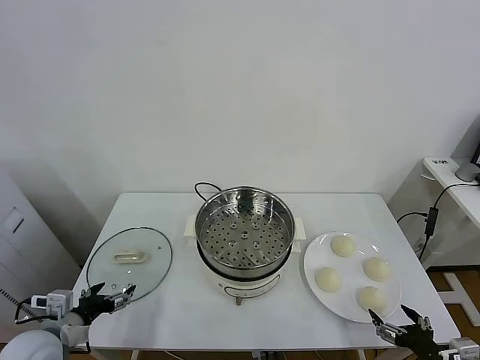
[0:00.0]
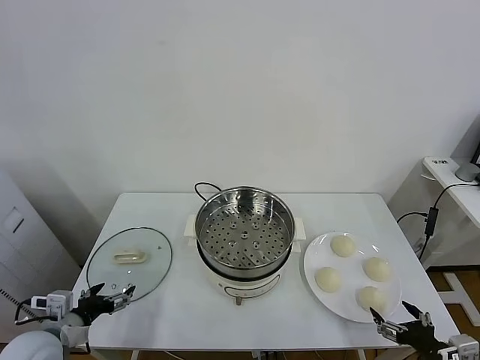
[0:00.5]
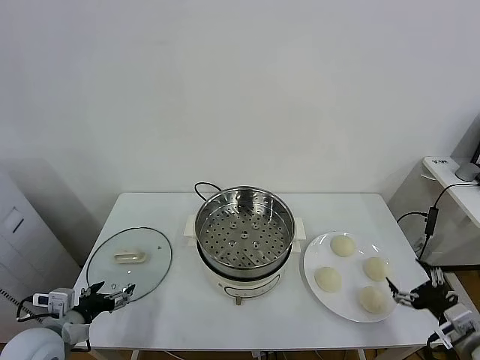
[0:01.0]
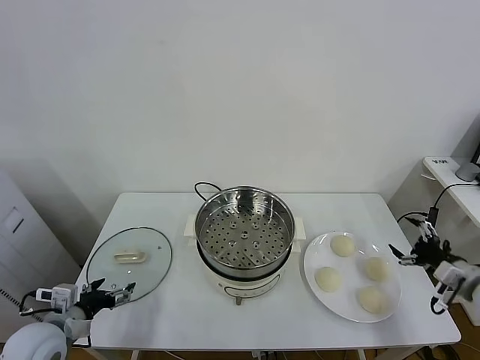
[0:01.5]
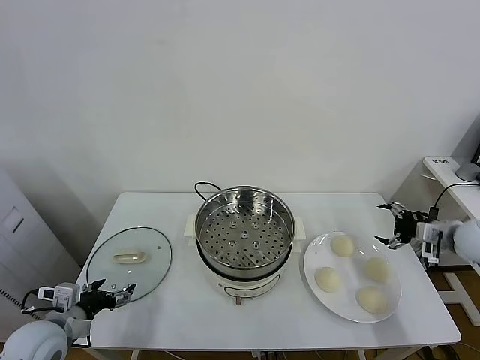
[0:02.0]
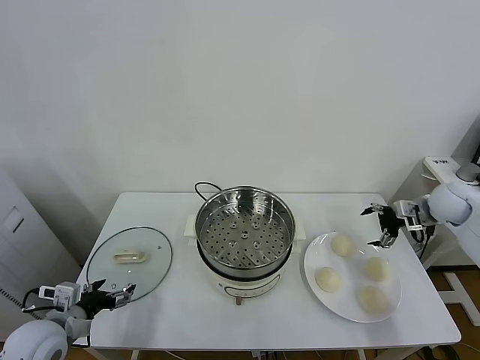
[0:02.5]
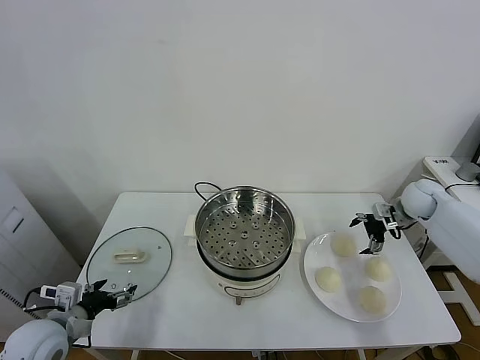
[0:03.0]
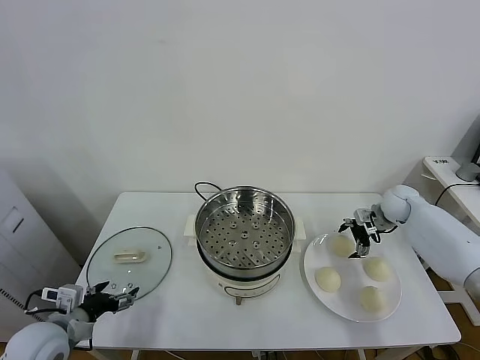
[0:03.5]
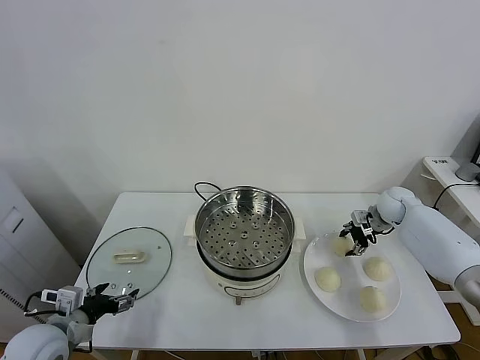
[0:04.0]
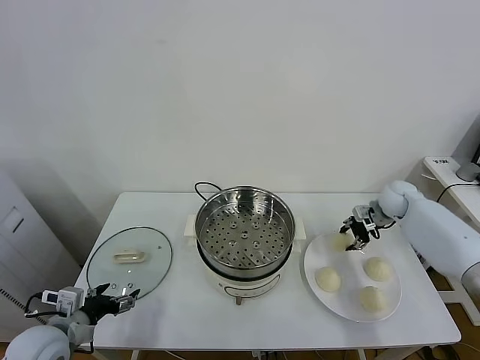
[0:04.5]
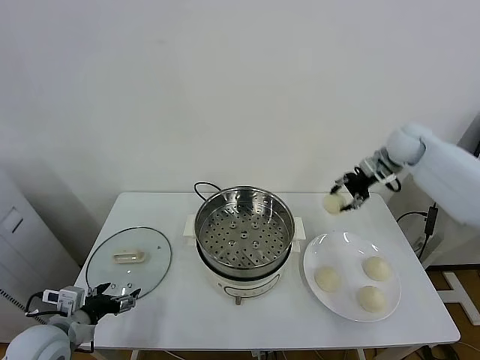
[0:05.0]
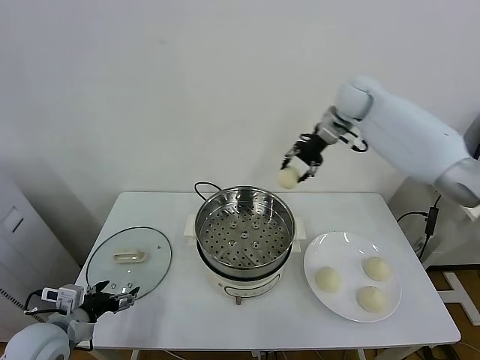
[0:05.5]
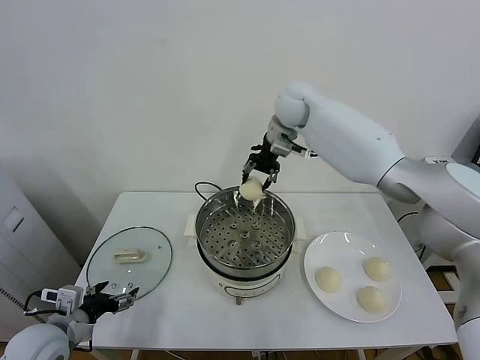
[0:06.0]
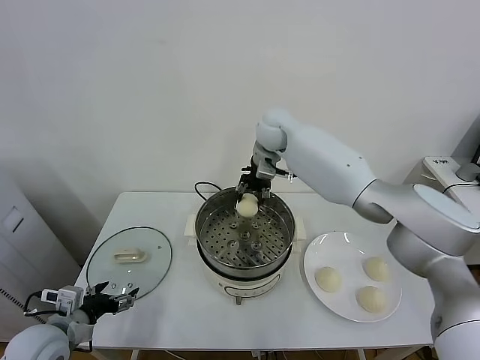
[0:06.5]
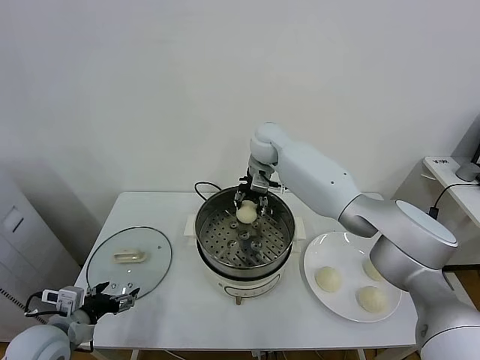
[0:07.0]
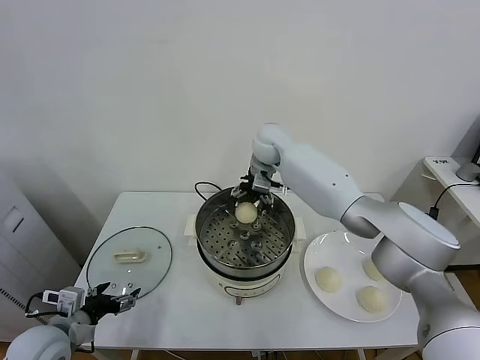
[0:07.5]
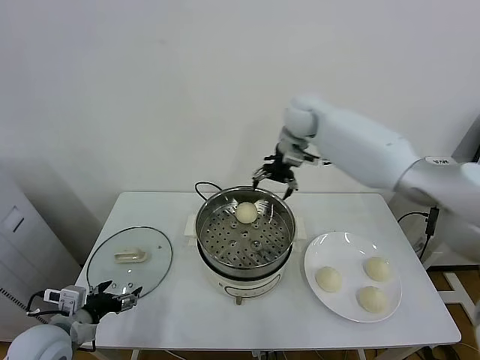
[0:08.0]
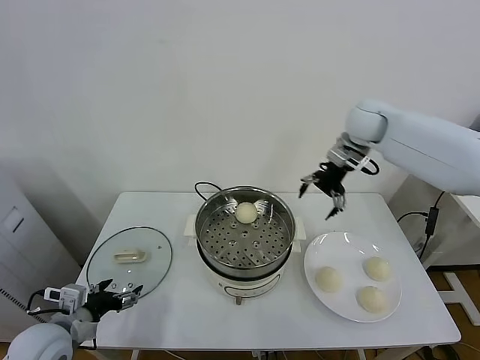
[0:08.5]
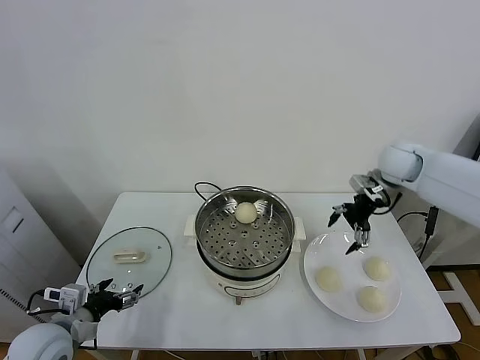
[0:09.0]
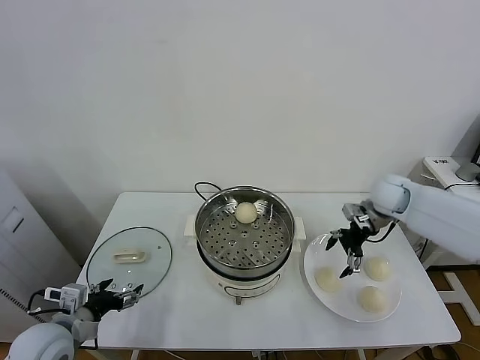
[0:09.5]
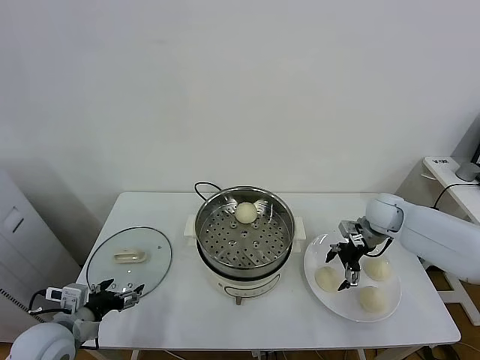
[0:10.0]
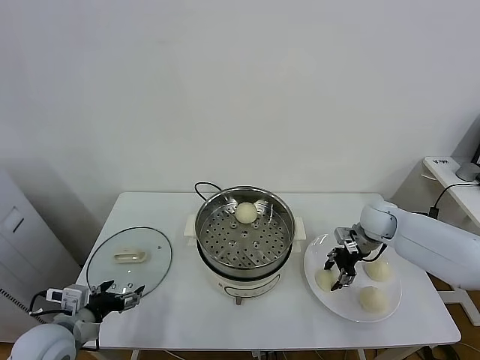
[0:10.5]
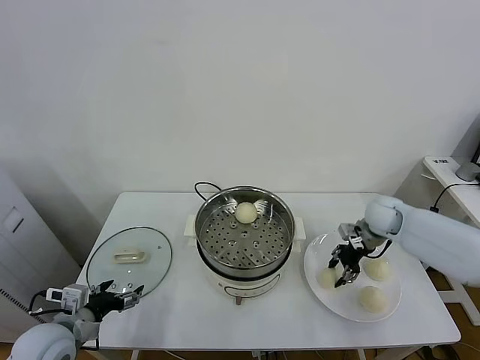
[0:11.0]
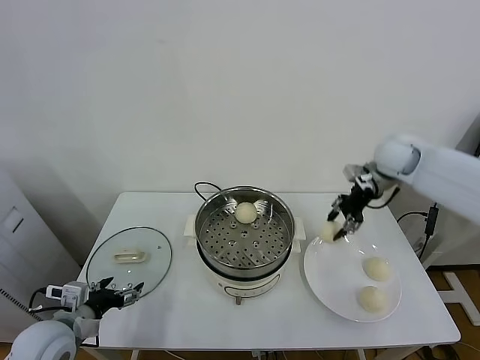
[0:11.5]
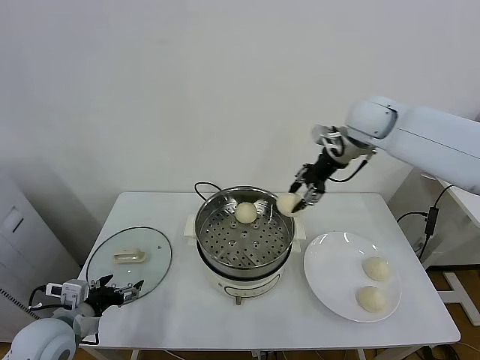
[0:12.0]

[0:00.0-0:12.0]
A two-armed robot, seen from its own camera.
Task of the whole recording: take steamed baozi put them in steamer.
Step, 0:00.0 to 0:04.0: Grasp the baozi in the plate with right gripper.
Step, 0:04.5 to 0:07.5: Place the baozi on the steamer with right gripper.
Step, 0:08.0 to 0:10.5: Grasp the baozi in the plate with right gripper.
0:02.0 to 0:04.0: The right gripper heads forward, to the left and downward, covering roughly 15 cm, and closes up.
0:04.0 to 0:06.0: The right gripper shifts roughly 40 cm to the left and upward.
0:06.0 to 0:08.0: The right gripper goes some 5 cm to the right, and opens its fingers.
0:08.0 to 0:10.0: The right gripper moves downward, to the right and backward, about 30 cm.
0:10.0 to 0:12.0: The right gripper moves upward and to the left, approximately 25 cm, and closes up.

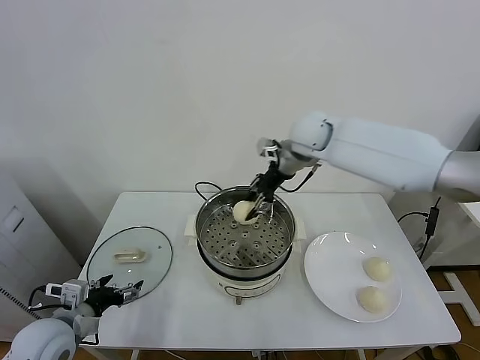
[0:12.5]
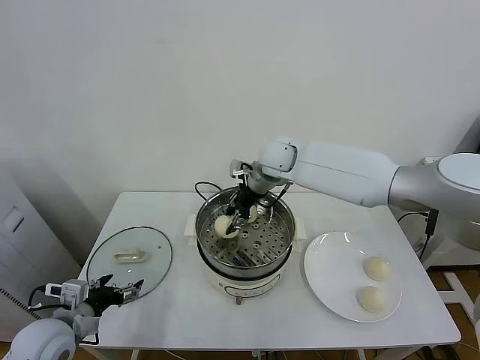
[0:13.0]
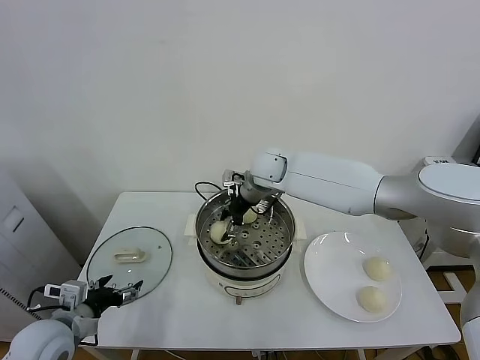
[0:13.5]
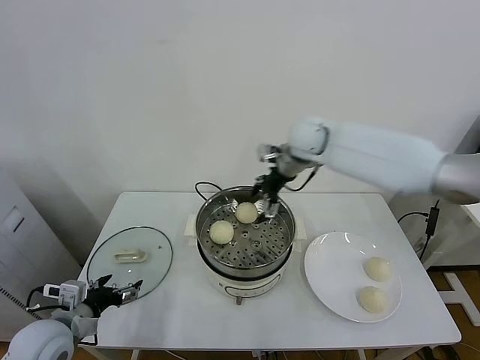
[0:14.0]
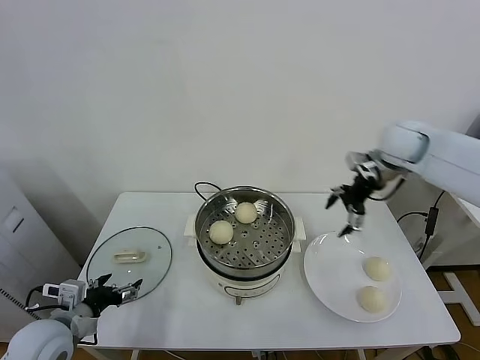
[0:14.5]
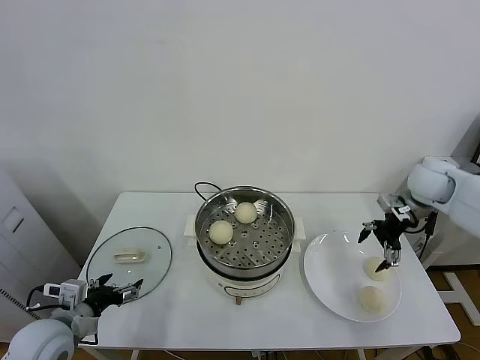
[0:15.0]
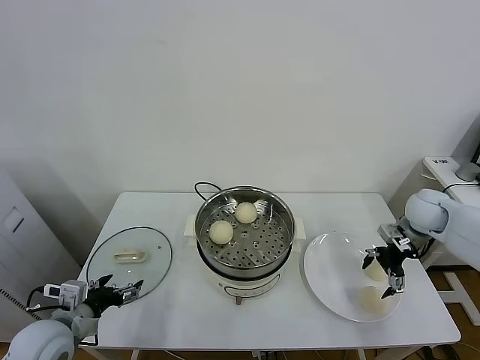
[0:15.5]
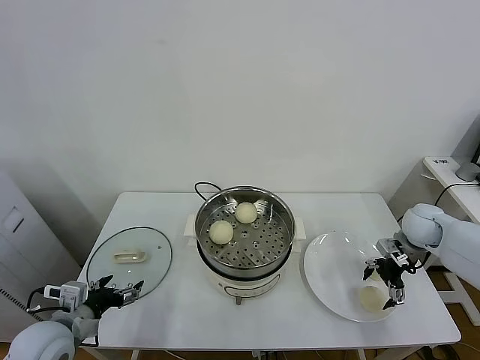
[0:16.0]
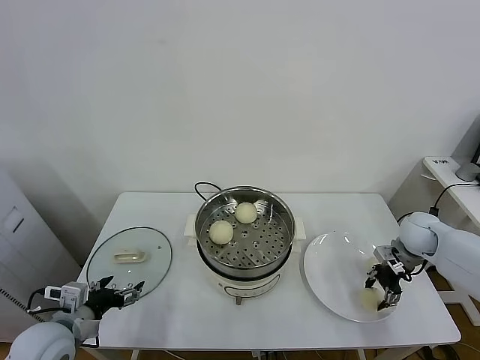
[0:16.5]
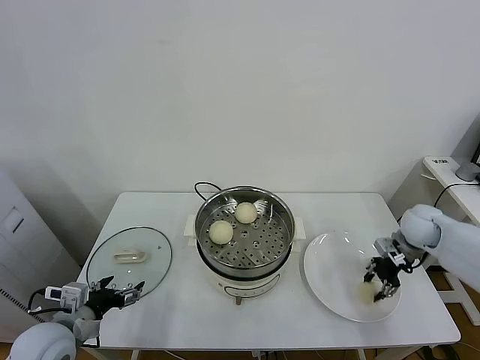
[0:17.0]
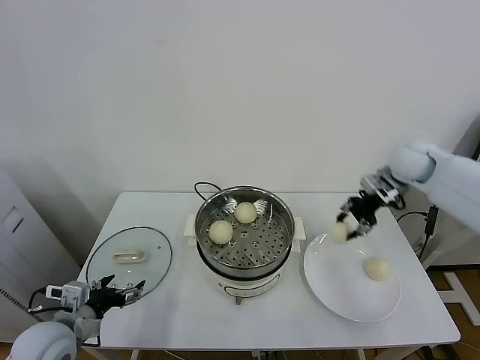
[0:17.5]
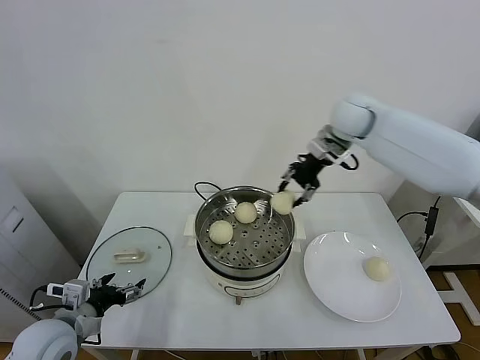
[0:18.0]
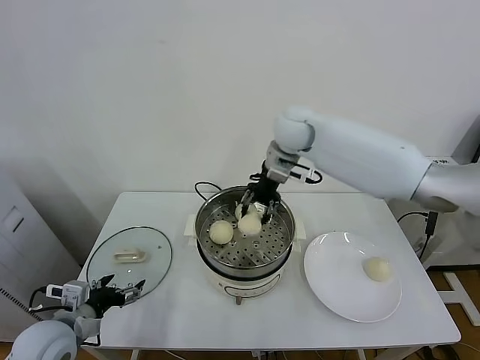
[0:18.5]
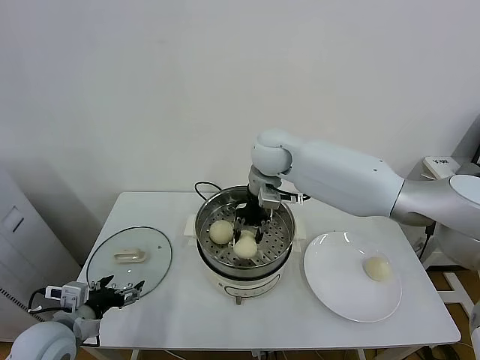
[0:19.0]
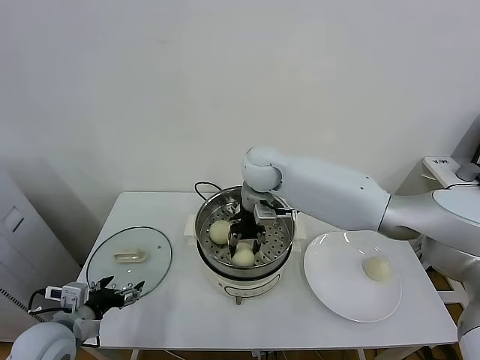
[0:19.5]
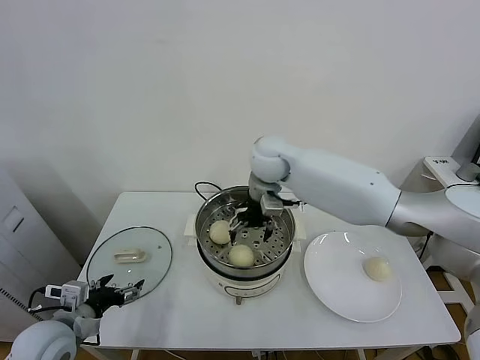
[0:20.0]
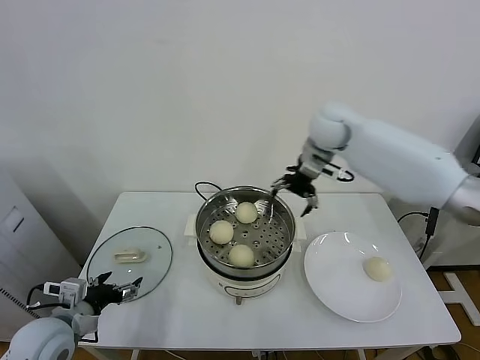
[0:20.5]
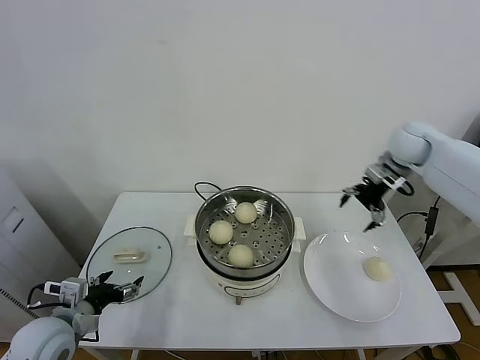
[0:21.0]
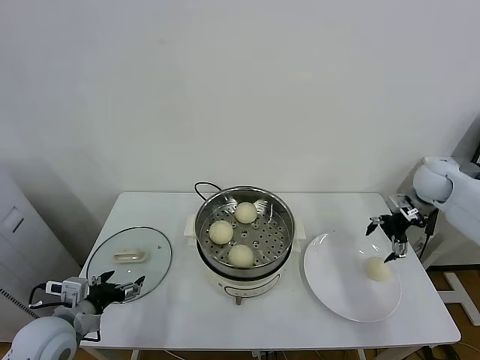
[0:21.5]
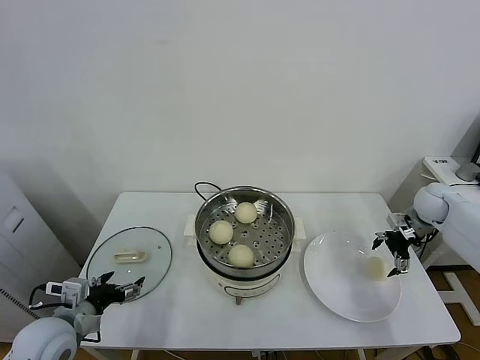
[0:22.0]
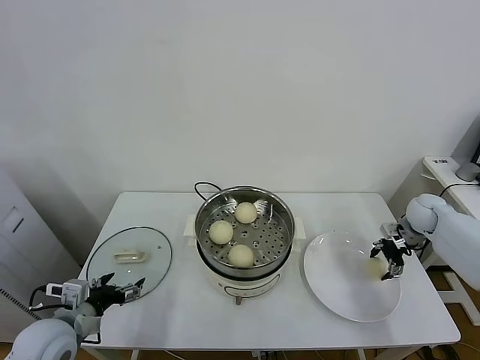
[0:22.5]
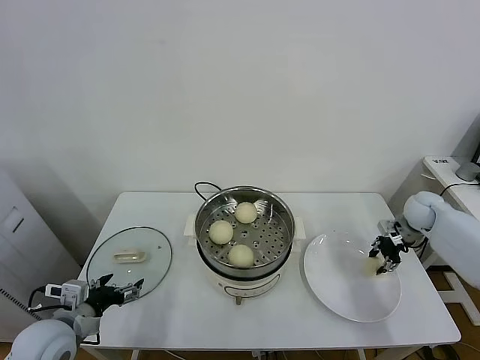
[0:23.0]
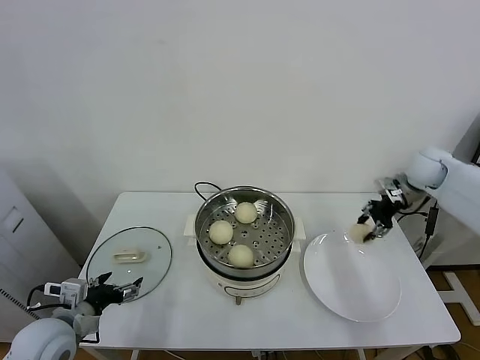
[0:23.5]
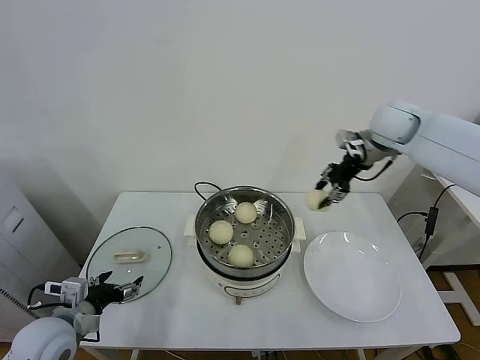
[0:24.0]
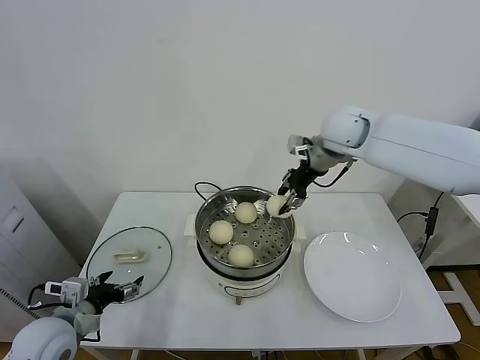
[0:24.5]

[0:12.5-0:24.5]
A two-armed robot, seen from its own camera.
Task of the whole recording: take steamed baozi put them in steamer.
Step, 0:14.0 to 0:16.5: Grasp the baozi in the plate with right gripper.
Step, 0:17.0 to 0:20.0: Place the baozi on the steamer with right gripper.
Step, 0:20.5 to 0:22.5: Grasp the baozi in the plate with right gripper.
0:12.5 to 0:14.5: The right gripper travels to the right by roughly 25 cm, and opens its fingers.
0:14.5 to 0:16.5: The right gripper heads downward, covering roughly 20 cm, and closes its fingers.
0:16.5 to 0:18.5: The right gripper shifts about 40 cm to the left and upward.
0:18.5 to 0:20.5: The right gripper travels to the right by about 10 cm, and opens.
0:20.5 to 0:22.5: The right gripper is displaced to the right and downward by approximately 35 cm, and closes its fingers.
0:22.5 to 0:24.5: The right gripper shifts approximately 35 cm to the left and upward, and closes its fingers.

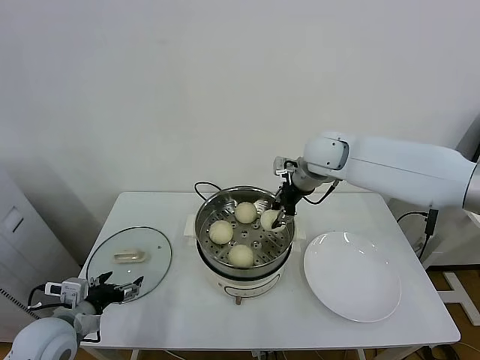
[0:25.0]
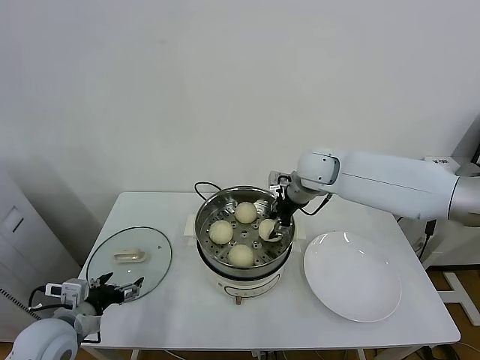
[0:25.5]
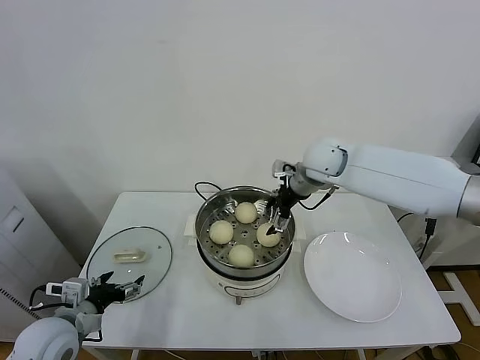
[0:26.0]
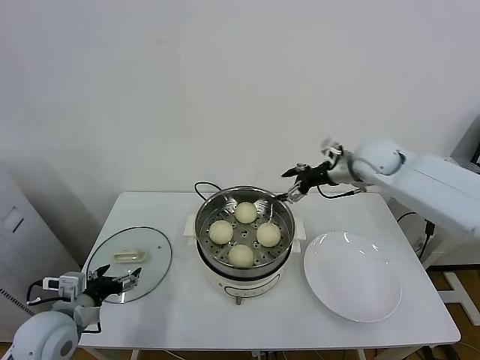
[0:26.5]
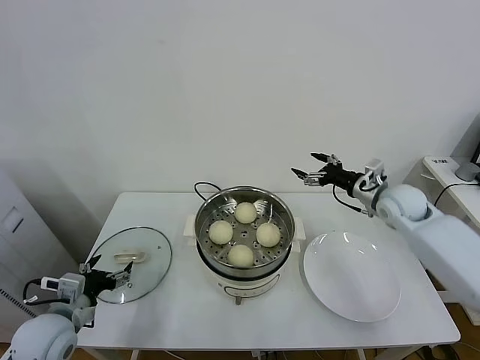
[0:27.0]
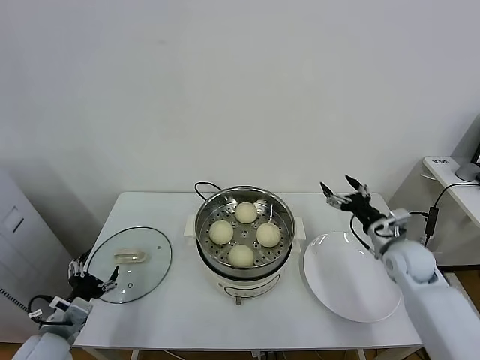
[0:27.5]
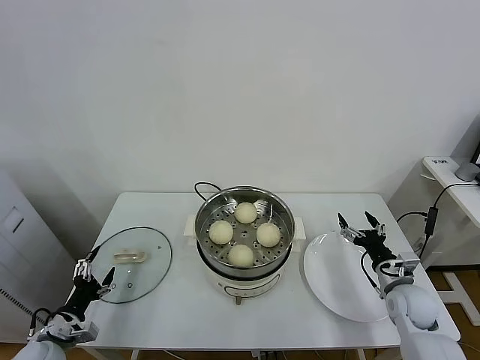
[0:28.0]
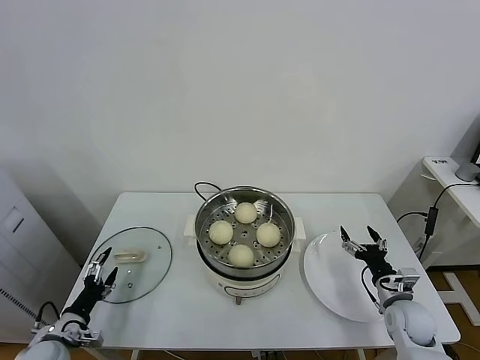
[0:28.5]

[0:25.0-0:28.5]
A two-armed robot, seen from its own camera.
Task of the whole recording: take steamed baozi put them in steamer.
0:25.0 to 0:27.0: The right gripper moves to the right and downward, roughly 20 cm, and opens its fingers.
0:27.0 to 0:28.5: The left gripper moves downward and to the left, about 15 cm. Meanwhile the right gripper heads downward and backward, covering some 25 cm.
